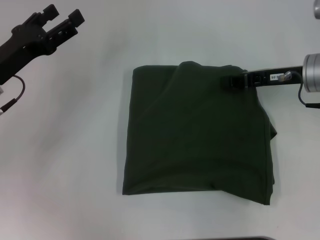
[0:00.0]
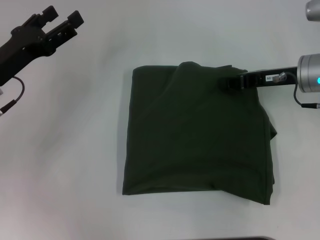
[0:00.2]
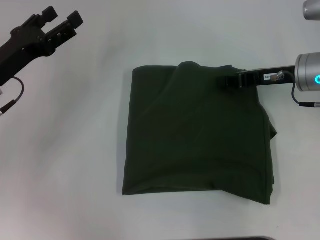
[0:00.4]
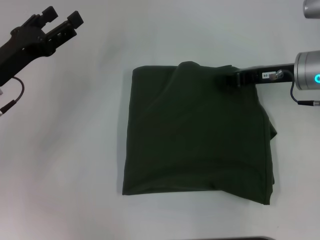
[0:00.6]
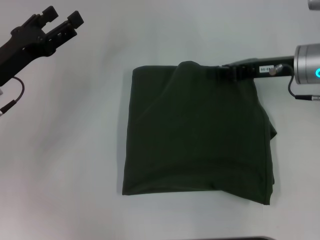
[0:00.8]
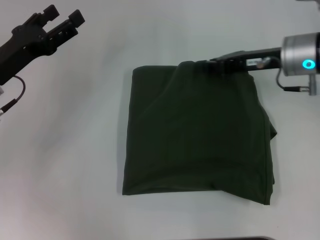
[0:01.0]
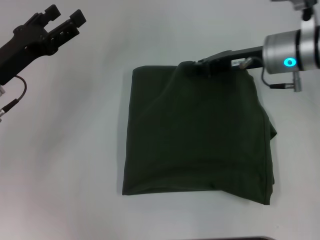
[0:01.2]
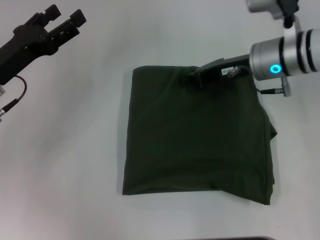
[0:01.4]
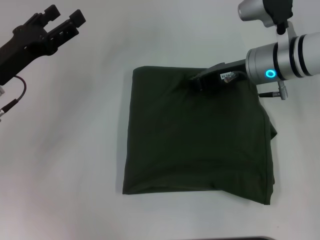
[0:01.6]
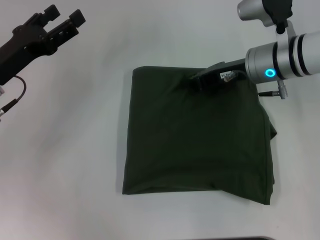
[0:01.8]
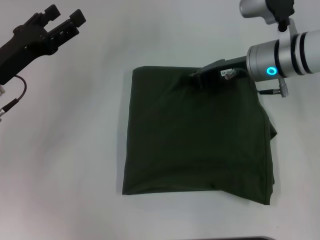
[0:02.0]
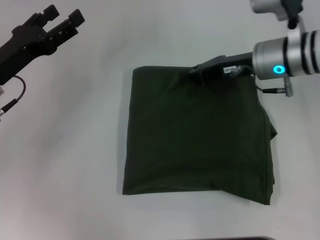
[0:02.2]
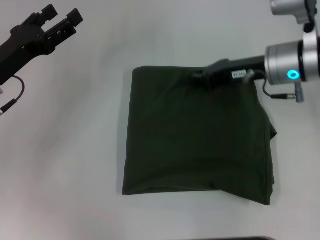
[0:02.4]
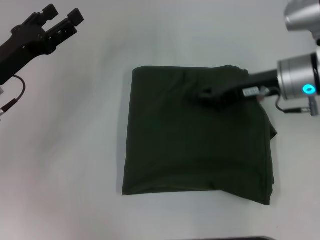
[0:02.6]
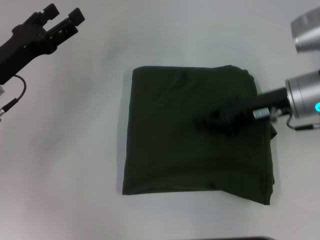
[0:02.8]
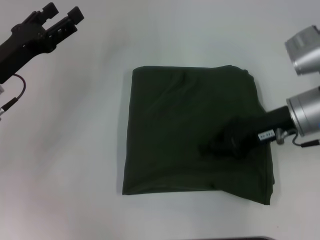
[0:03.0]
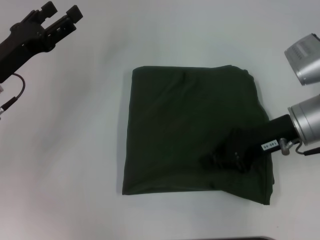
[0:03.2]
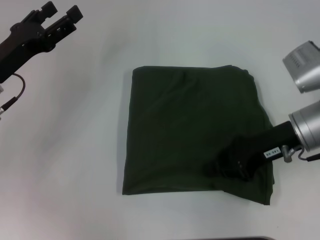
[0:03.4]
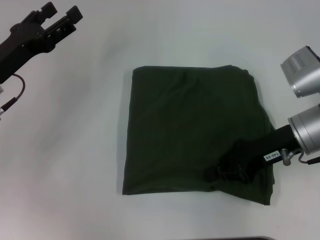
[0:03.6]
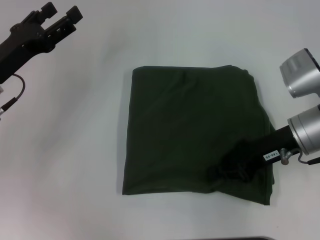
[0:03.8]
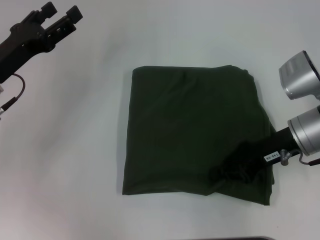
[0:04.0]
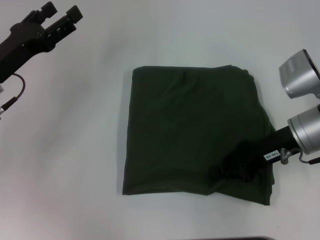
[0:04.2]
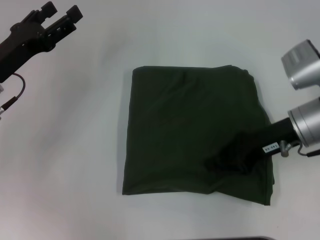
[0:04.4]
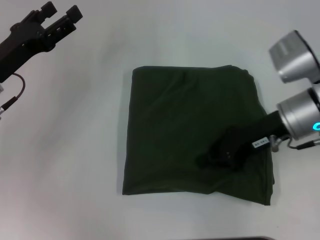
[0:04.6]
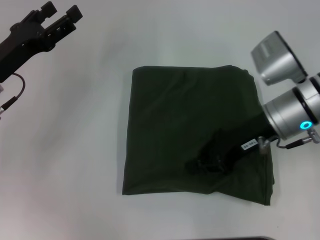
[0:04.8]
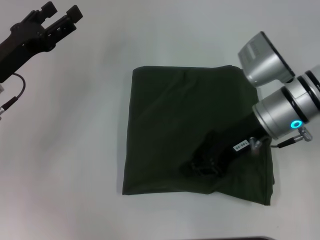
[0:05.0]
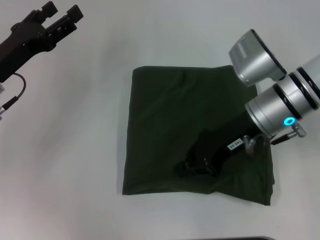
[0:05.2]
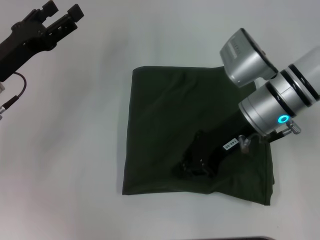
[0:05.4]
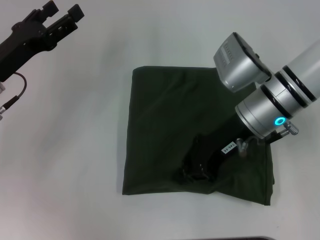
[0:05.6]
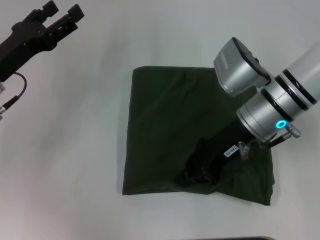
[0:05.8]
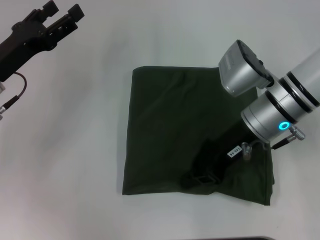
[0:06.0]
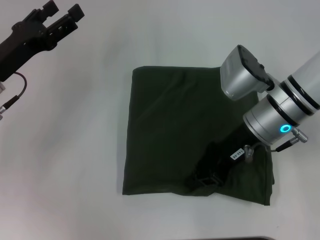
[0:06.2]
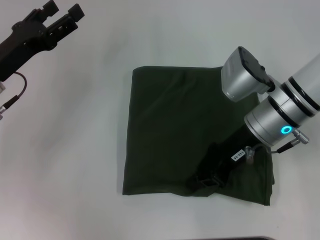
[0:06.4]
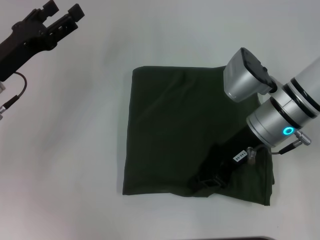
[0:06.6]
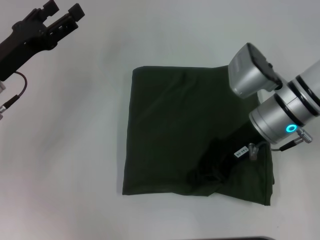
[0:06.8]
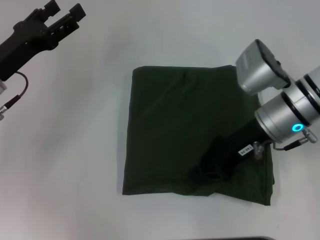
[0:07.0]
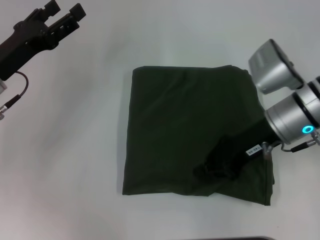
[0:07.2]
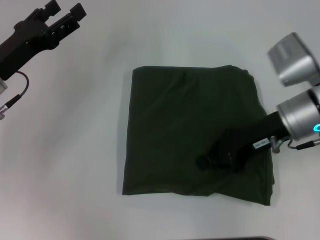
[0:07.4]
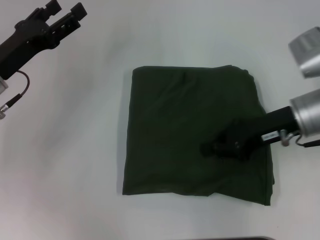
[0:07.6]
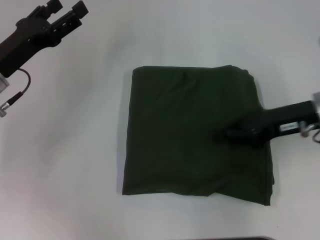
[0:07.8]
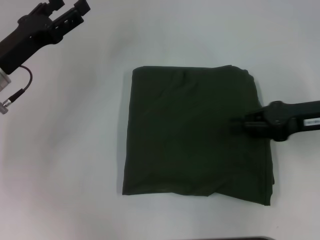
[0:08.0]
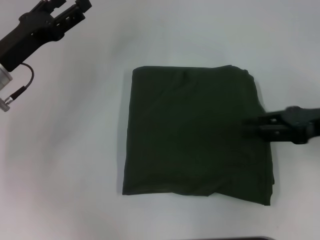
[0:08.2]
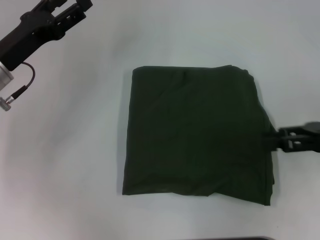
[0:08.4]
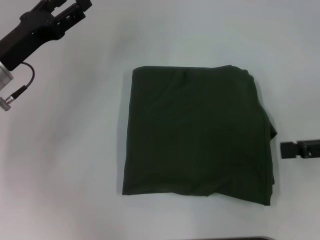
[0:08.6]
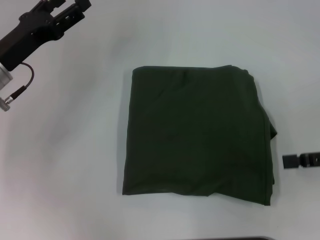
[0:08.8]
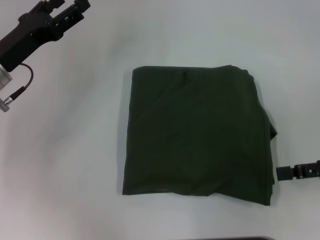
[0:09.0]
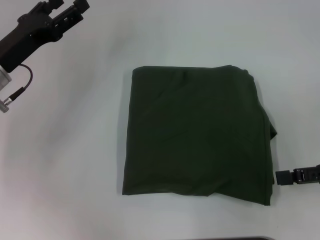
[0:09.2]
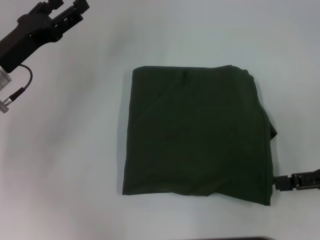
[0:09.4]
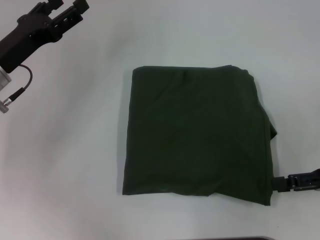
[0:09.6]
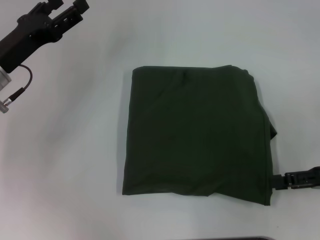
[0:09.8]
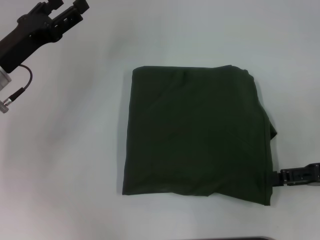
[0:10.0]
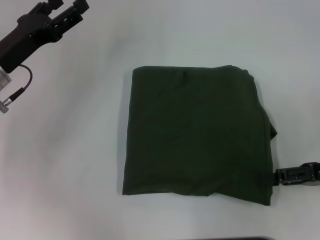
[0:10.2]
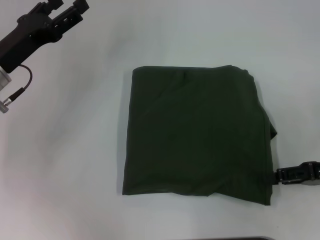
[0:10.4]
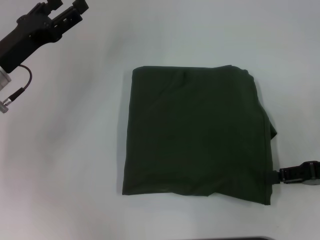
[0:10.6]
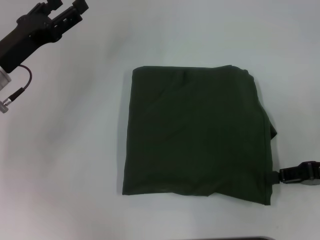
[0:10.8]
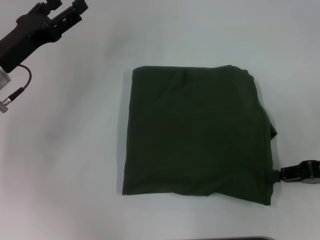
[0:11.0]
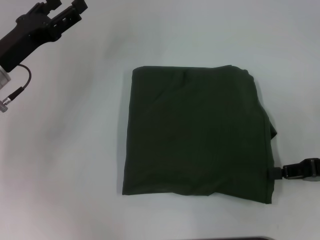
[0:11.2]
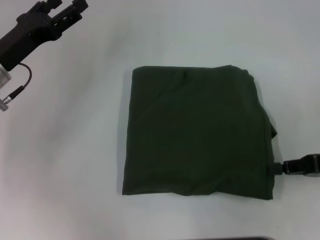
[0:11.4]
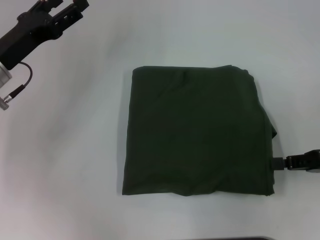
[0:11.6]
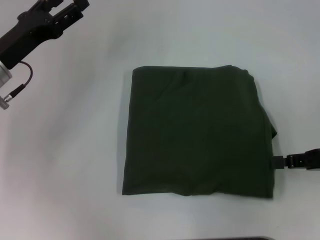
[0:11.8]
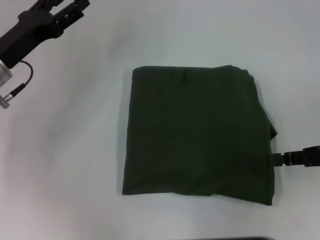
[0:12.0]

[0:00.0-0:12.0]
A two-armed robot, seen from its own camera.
0:00.0 to 0:01.6: The right gripper moves to the left, approximately 10 cm.
0:01.6 to 0:03.0: The right gripper shifts approximately 5 cm backward.
0:03.0 to 0:04.4: The grippers make only small movements.
0:04.4 to 0:06.0: The right gripper is displaced to the left by some 5 cm.
0:06.0 to 0:07.6: The right gripper heads to the right, covering about 5 cm.
0:07.6 to 0:09.0: The right gripper shifts approximately 15 cm to the right and backward, and opens its fingers.
0:09.0 to 0:10.4: The grippers move only a little.
0:10.4 to 0:12.0: The right gripper closes its fingers.

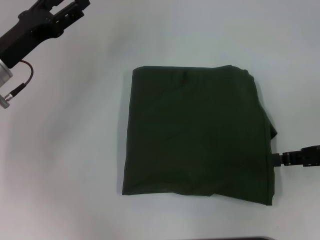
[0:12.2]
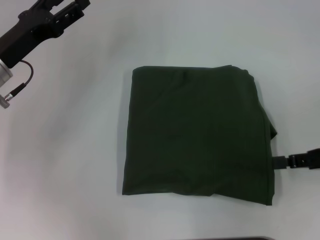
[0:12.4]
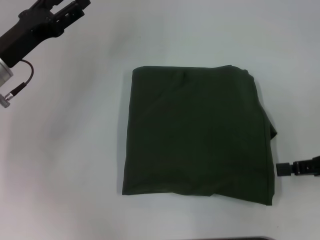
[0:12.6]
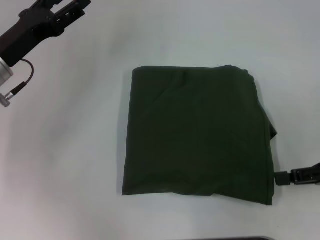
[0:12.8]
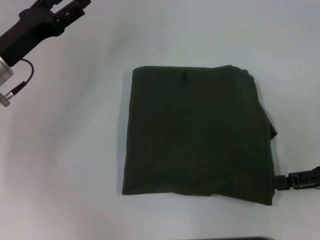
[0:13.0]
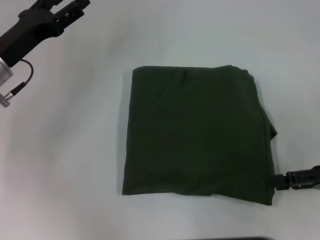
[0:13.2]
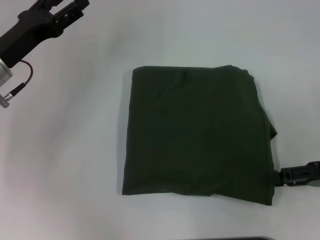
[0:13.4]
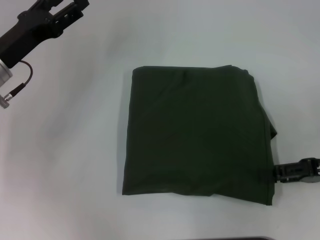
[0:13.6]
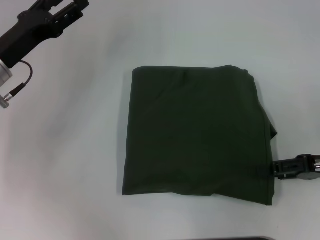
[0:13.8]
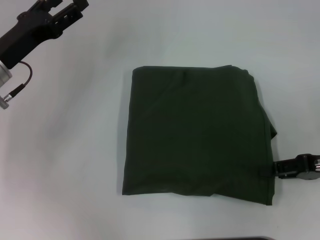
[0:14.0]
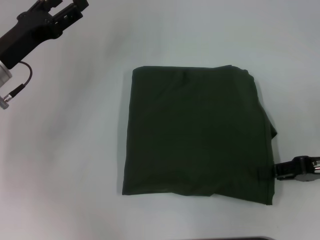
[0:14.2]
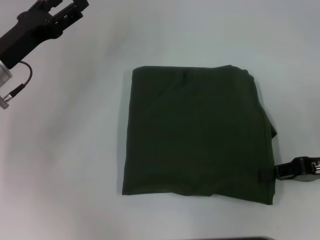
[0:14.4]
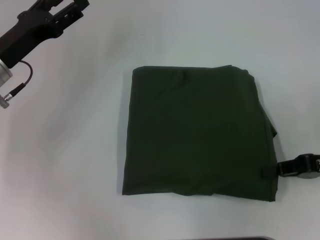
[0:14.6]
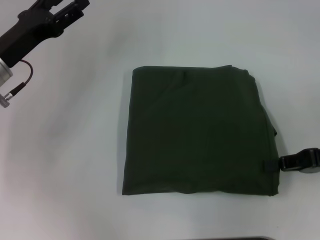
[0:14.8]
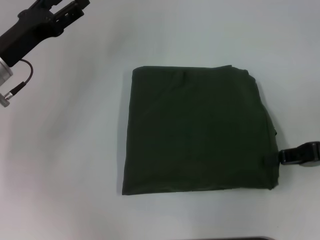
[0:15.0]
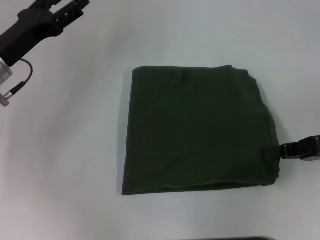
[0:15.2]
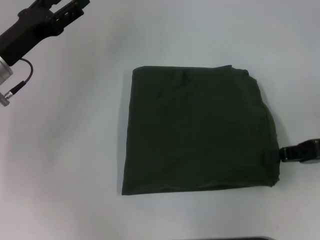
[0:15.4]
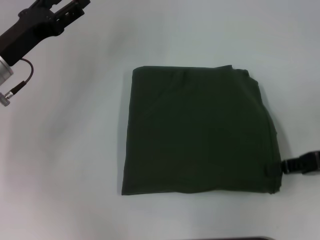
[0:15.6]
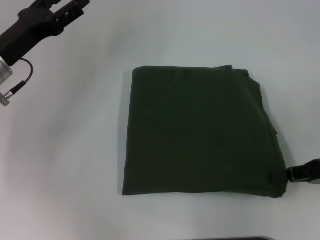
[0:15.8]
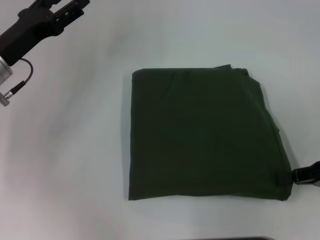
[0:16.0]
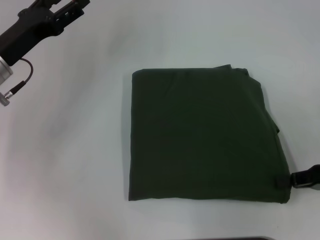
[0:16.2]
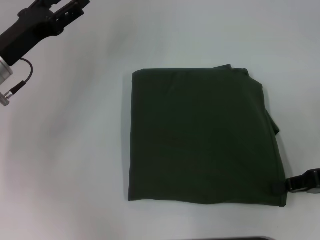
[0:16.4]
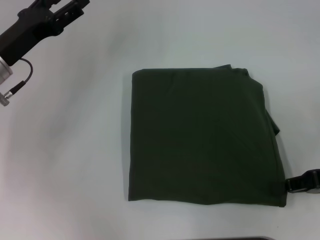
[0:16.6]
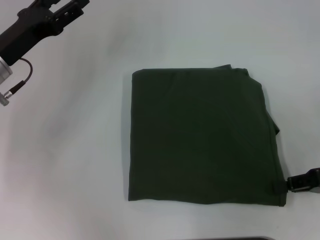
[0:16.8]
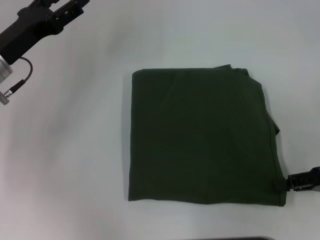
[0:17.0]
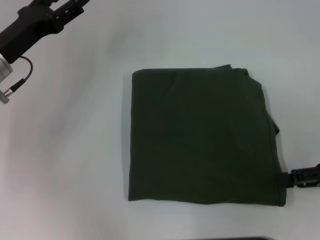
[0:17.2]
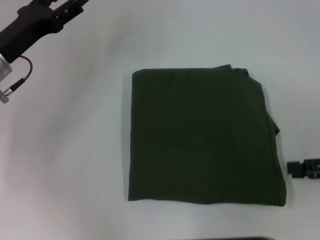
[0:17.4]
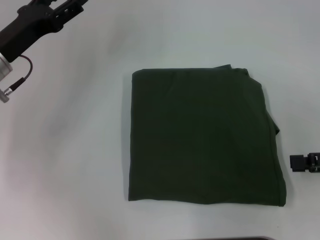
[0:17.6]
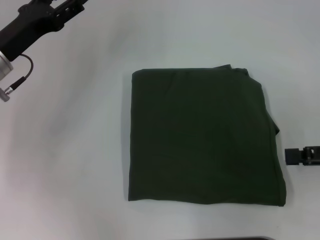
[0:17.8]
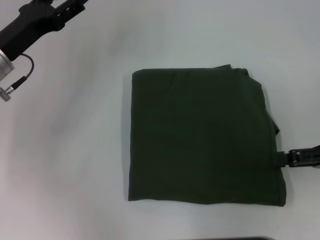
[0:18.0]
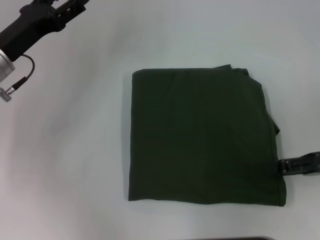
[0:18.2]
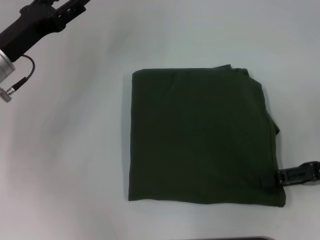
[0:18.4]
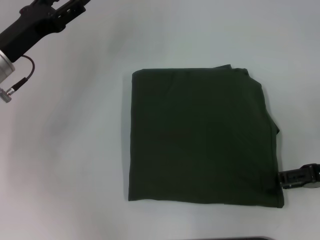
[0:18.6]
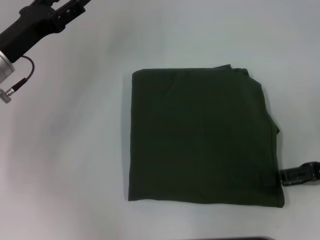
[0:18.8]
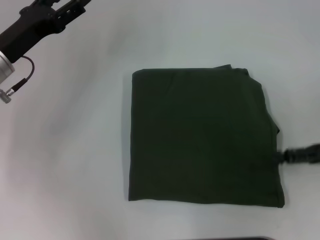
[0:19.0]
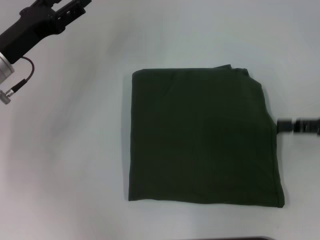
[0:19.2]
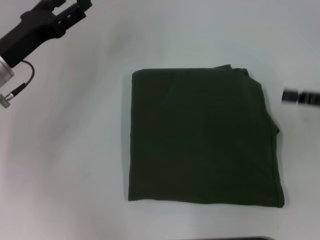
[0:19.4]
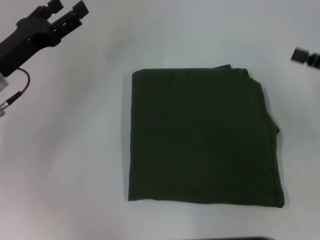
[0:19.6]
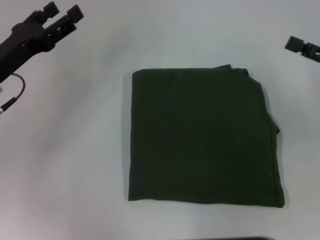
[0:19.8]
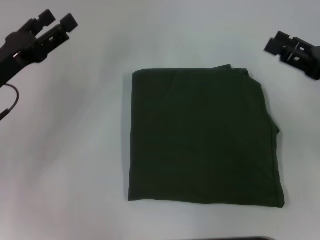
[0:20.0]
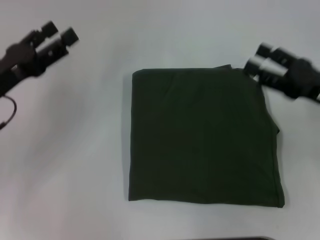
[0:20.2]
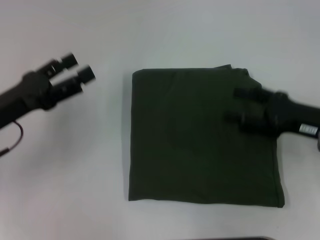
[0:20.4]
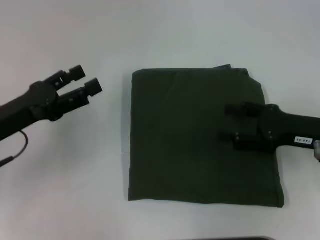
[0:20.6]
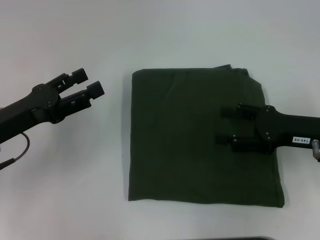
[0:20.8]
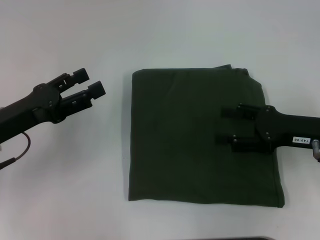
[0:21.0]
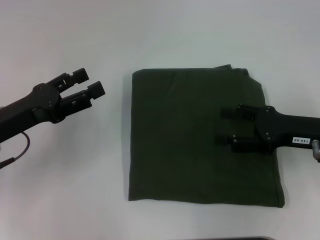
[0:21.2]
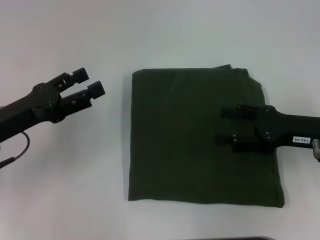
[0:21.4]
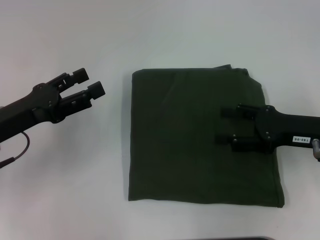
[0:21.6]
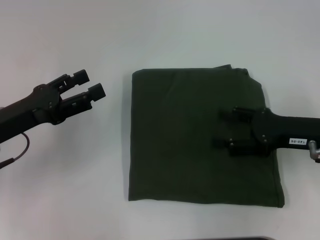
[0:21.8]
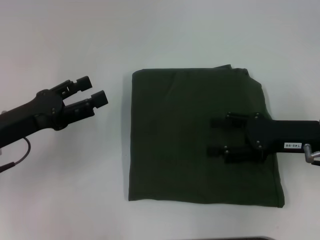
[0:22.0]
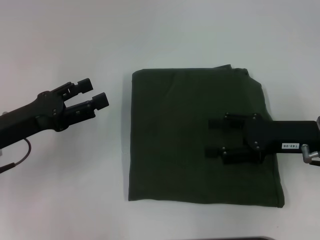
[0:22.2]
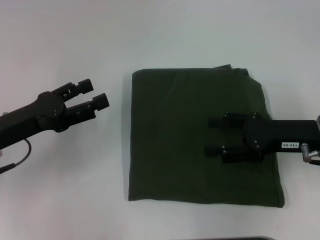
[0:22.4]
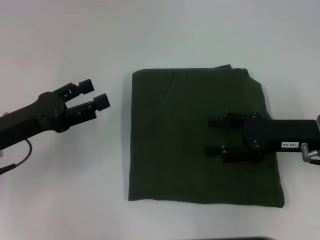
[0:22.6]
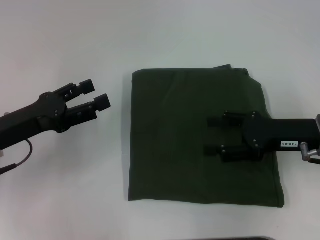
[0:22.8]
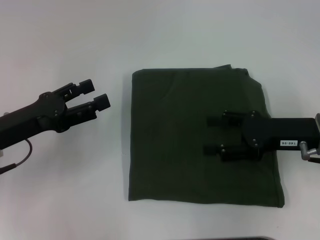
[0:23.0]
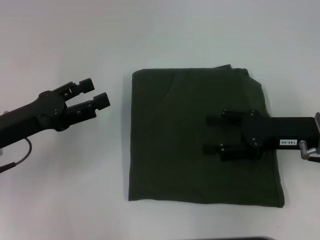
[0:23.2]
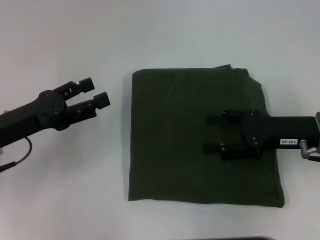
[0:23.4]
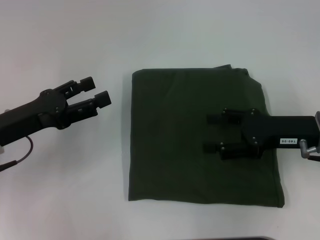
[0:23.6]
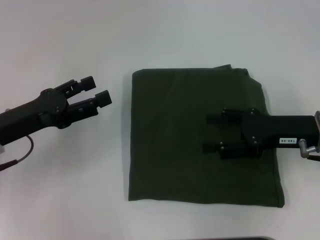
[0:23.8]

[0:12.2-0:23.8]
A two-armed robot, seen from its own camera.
0:12.2 to 0:13.6: The right gripper opens up.
0:13.6 to 0:15.0: The right gripper closes up.
0:15.0 to 0:16.6: The grippers move only a little.
0:16.6 to 0:18.0: The right gripper opens its fingers.
0:19.4 to 0:21.0: The left gripper travels backward by some 10 cm. The right gripper moves to the left, about 10 cm.
0:21.0 to 0:22.4: The grippers make only small movements.
0:22.4 to 0:23.8: The two grippers keep their place.
